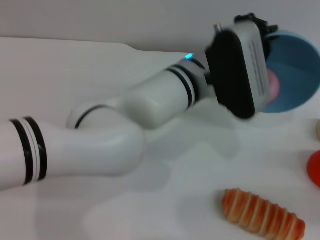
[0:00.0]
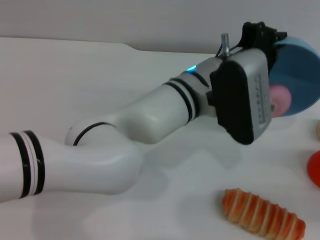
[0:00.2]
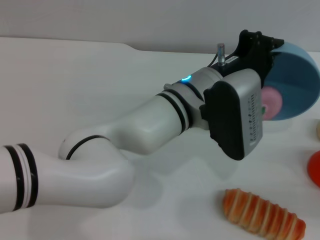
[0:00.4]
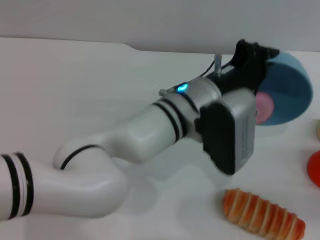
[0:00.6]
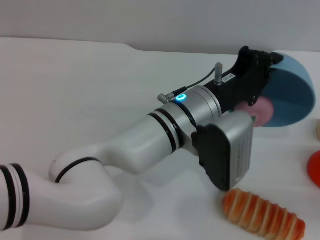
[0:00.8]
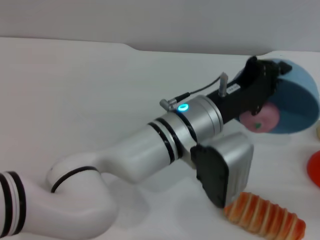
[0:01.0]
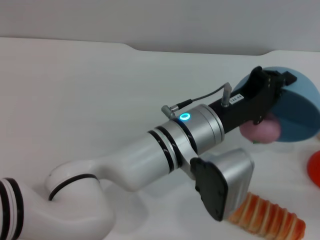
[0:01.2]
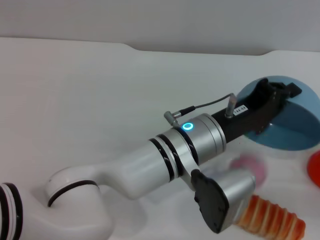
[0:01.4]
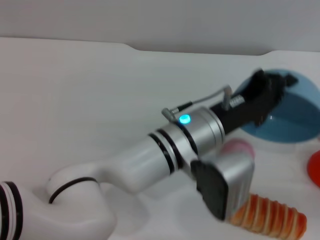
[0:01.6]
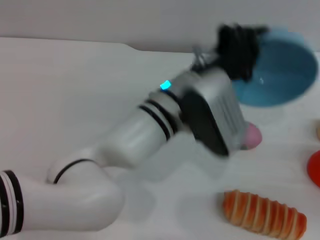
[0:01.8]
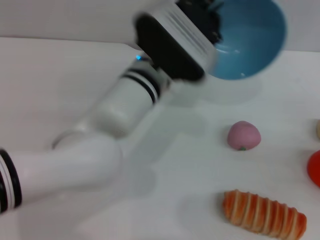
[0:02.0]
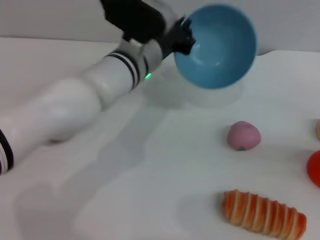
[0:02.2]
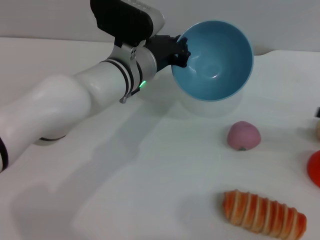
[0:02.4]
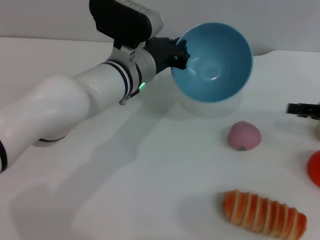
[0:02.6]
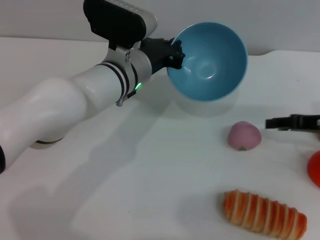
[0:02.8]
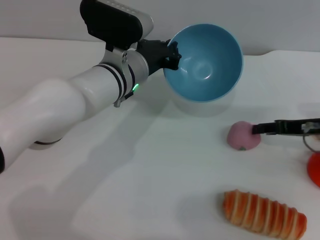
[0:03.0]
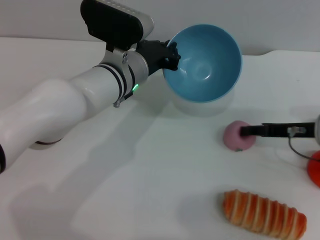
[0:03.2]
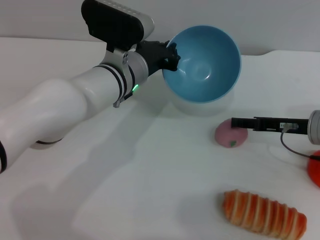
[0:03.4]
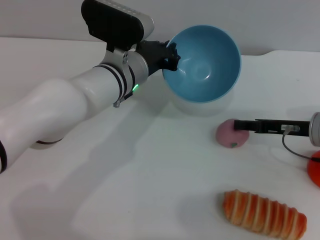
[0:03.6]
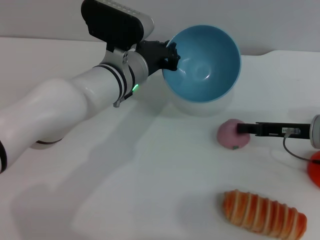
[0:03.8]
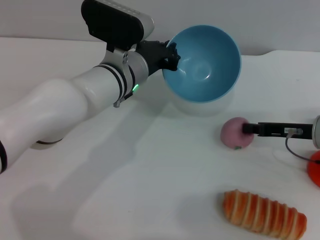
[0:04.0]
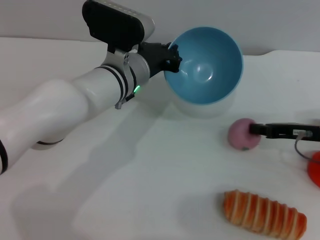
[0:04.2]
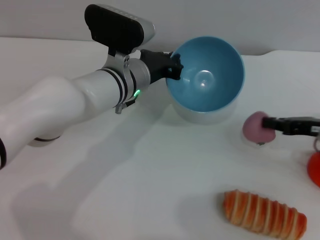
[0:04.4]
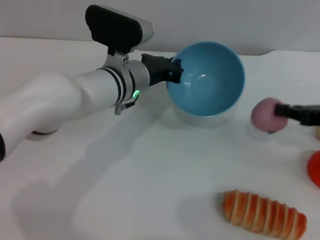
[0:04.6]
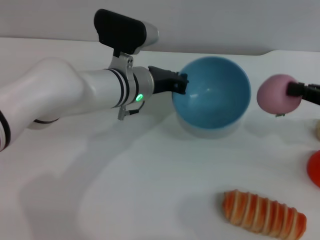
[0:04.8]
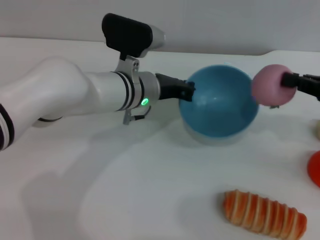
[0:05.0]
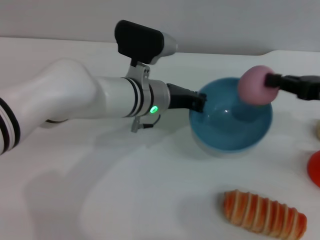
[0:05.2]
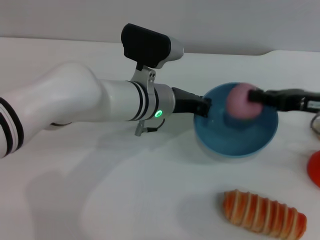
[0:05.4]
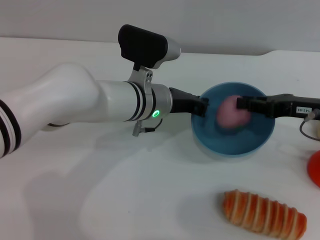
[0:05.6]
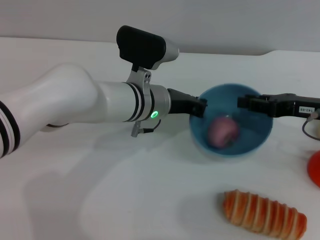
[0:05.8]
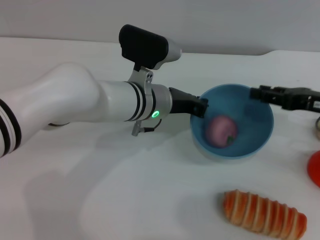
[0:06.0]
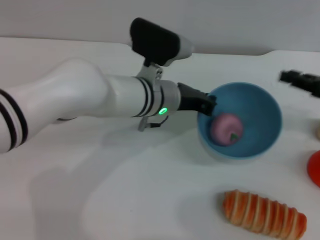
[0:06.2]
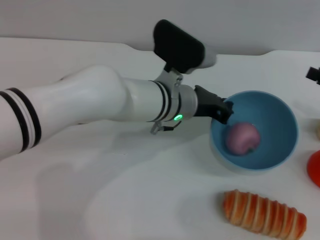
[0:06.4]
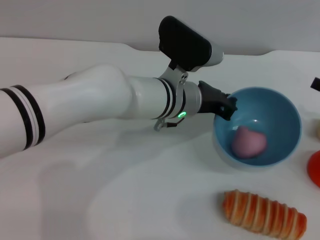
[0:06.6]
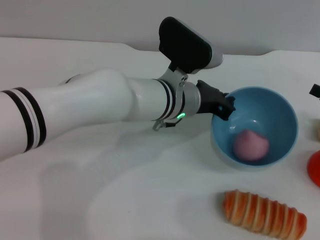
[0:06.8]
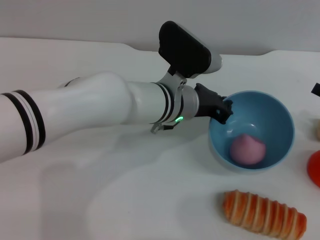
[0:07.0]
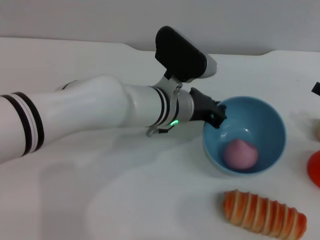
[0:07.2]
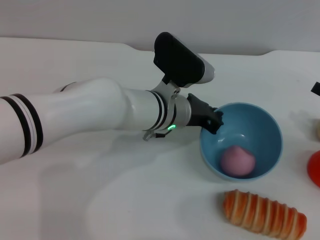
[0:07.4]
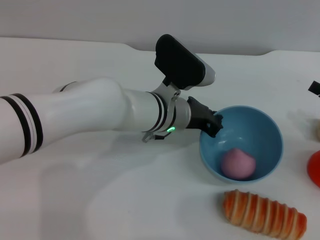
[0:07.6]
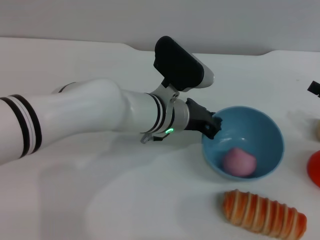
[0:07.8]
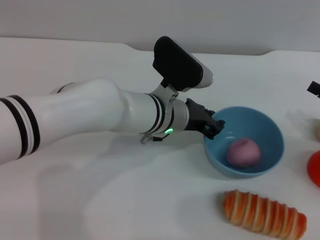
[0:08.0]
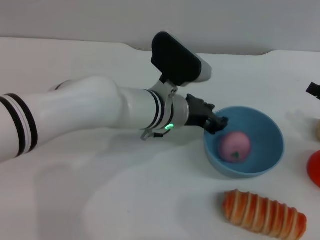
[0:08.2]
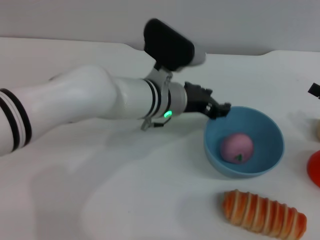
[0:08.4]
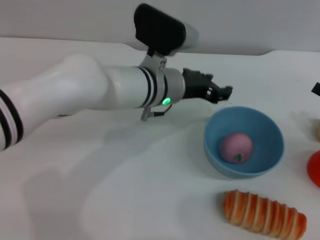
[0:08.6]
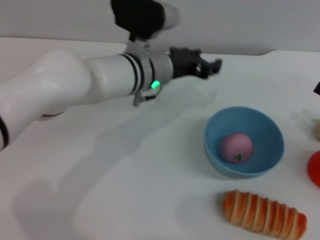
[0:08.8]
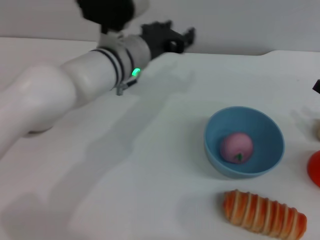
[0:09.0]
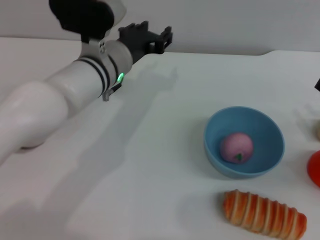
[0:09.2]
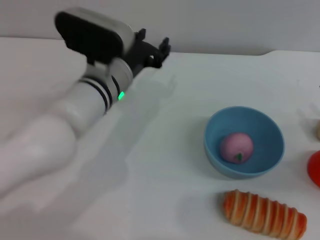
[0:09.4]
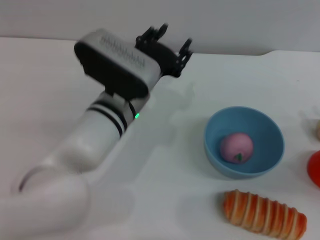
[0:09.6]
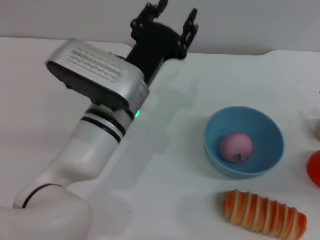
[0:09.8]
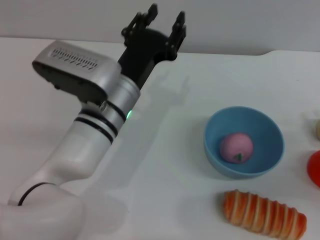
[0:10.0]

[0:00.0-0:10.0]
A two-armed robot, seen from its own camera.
Task of the whole recording: put the peach into the blue bowl and pour it out repeatedly.
Step, 0:00.0 to 0:01.6: Pour the peach out of bowl.
Step, 0:02.0 to 0:04.4: Pick up the peach with the right gripper.
Step, 0:04.6 to 0:06.0: Place the peach into the bowl.
Step, 0:06.2 to 0:08.6: Place the bowl on the table.
0:00.0 to 0:01.4: The left gripper moves backward, about 10 cm.
0:01.4 to 0:02.8: Both grippers move forward and to the left, approximately 15 cm.
0:02.8 to 0:04.2: The right gripper closes up.
0:05.8 to 0:07.2: The right gripper travels to the right and backward by roughly 10 cm, and opens its fingers.
0:07.2 to 0:08.6: The left gripper opens.
0:08.6 to 0:10.0: The right gripper moves about 5 cm; the left gripper is displaced backward by about 5 cm.

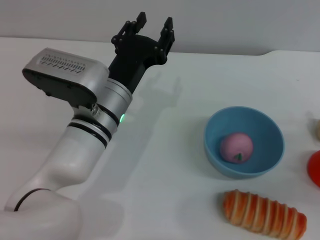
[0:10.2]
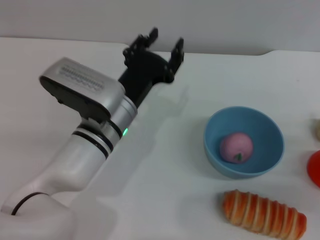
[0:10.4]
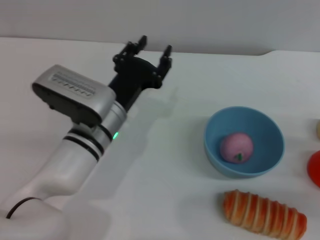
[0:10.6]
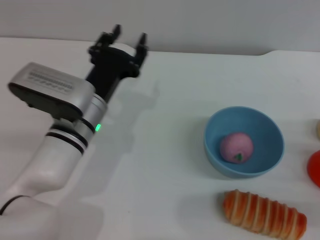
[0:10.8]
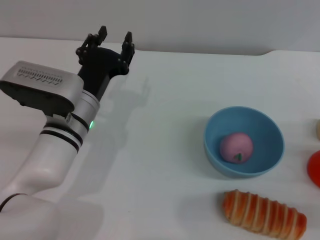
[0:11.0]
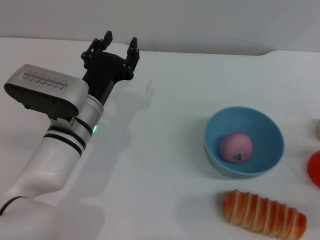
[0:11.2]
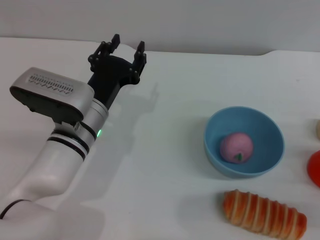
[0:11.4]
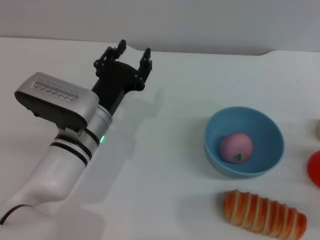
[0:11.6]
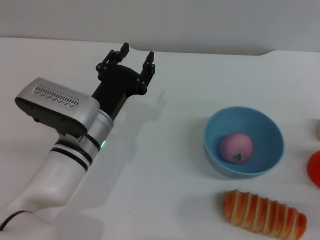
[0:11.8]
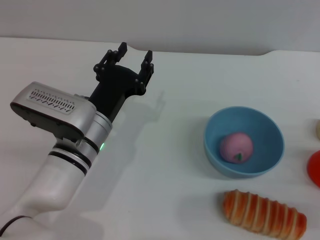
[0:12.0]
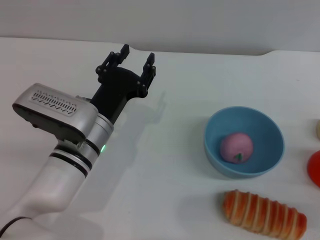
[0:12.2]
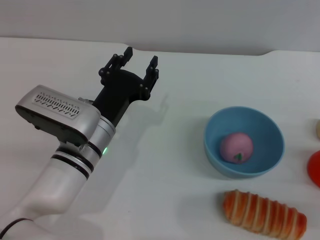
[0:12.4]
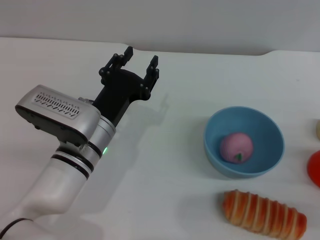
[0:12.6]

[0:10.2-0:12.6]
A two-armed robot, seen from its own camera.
Task of the whole recording: put the peach into the blue bowl and pour it out repeatedly.
0:11.4 to 0:12.6: The grippers make only small movements.
